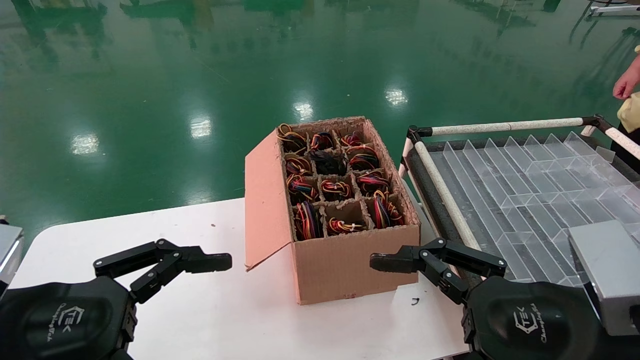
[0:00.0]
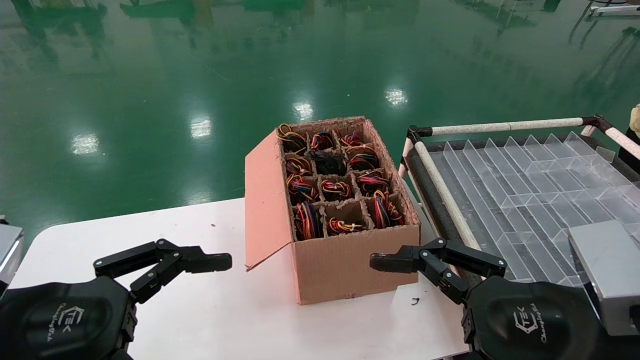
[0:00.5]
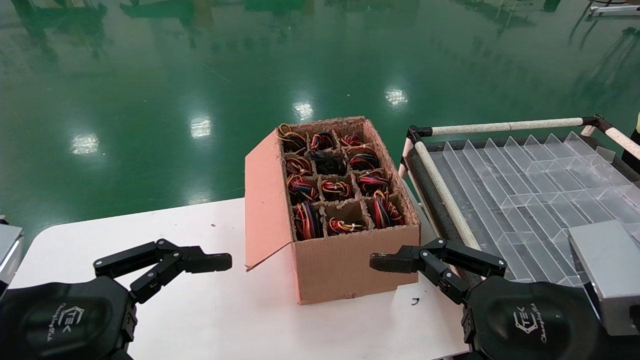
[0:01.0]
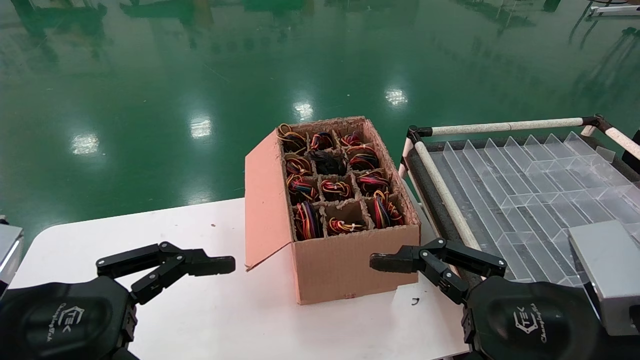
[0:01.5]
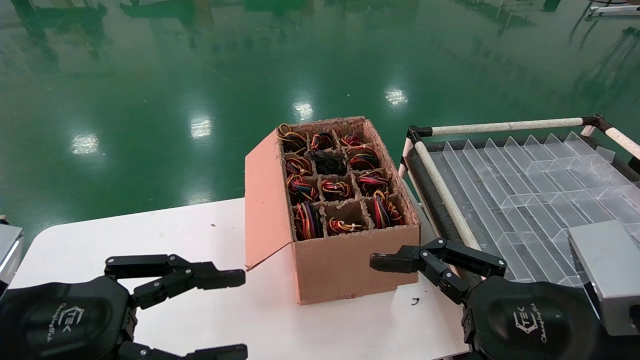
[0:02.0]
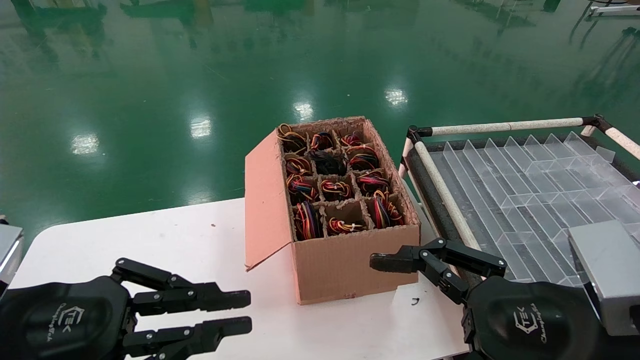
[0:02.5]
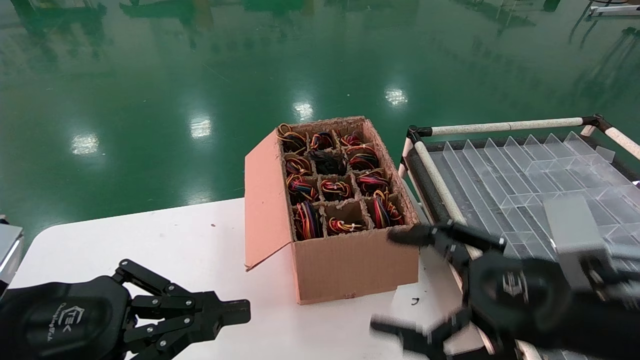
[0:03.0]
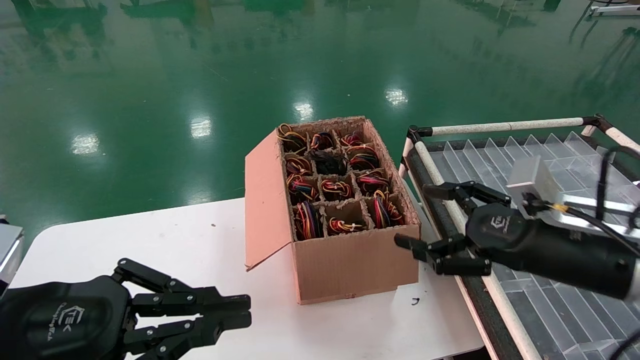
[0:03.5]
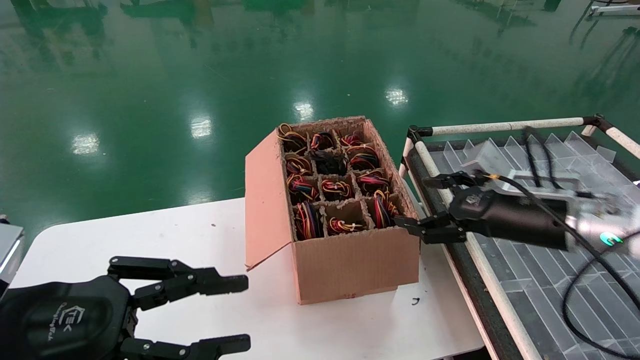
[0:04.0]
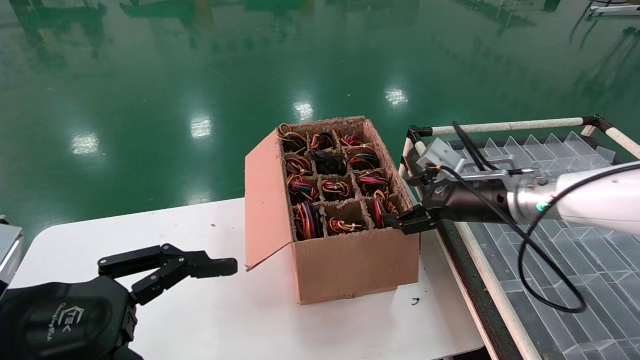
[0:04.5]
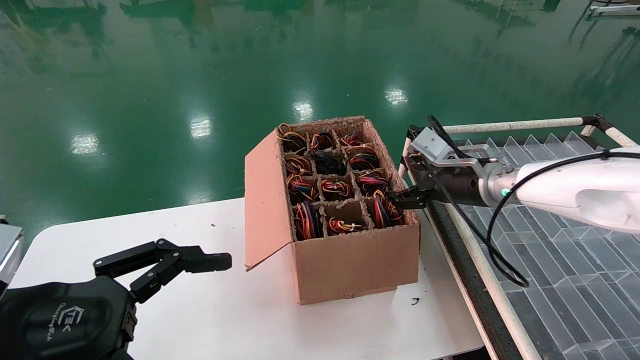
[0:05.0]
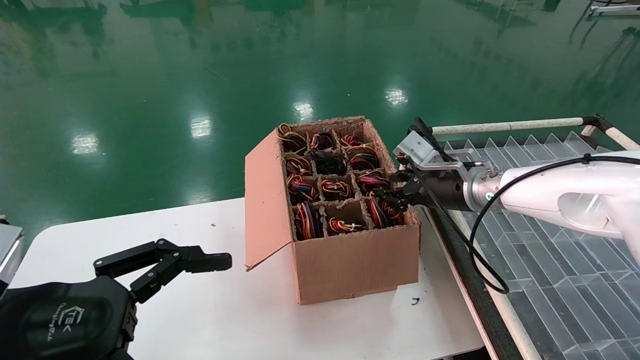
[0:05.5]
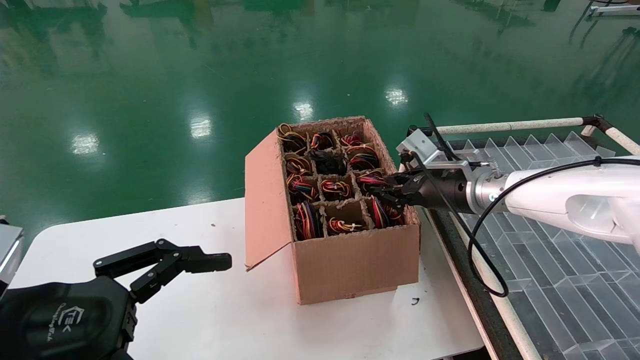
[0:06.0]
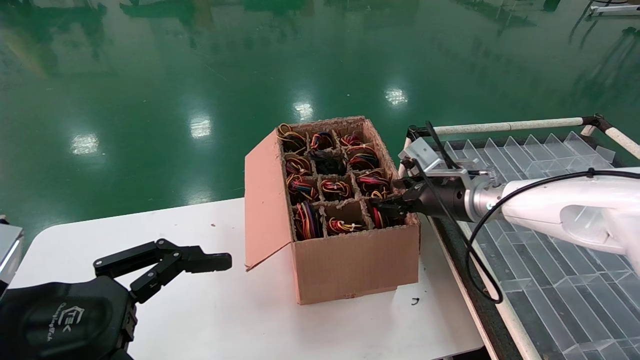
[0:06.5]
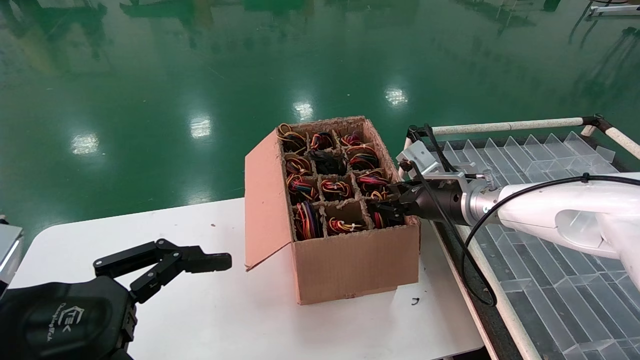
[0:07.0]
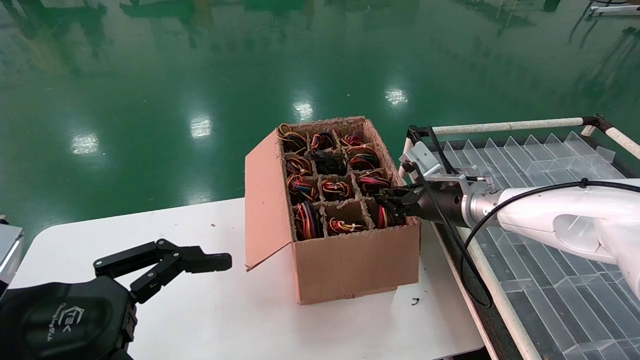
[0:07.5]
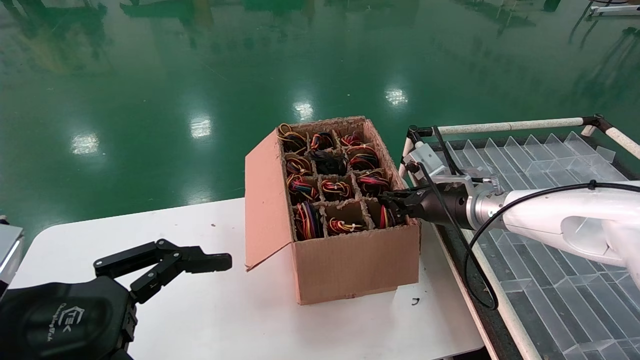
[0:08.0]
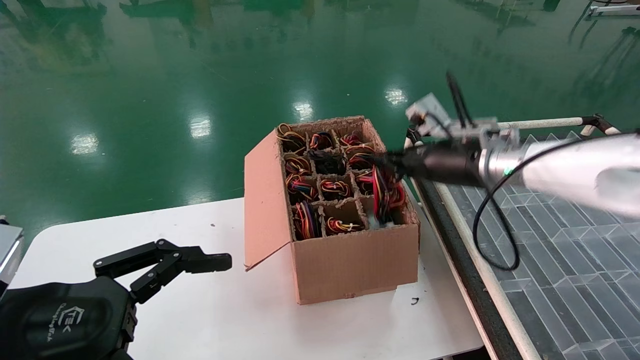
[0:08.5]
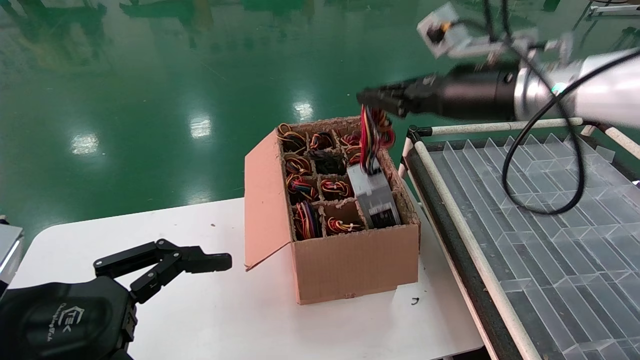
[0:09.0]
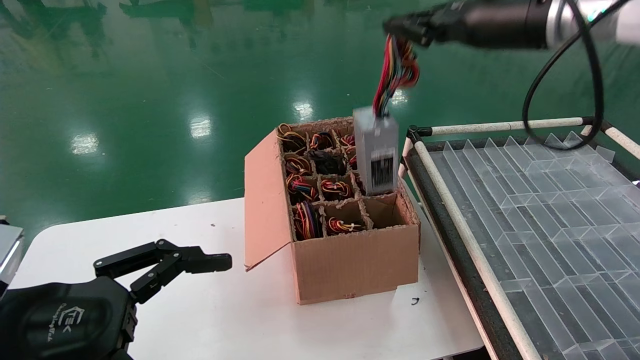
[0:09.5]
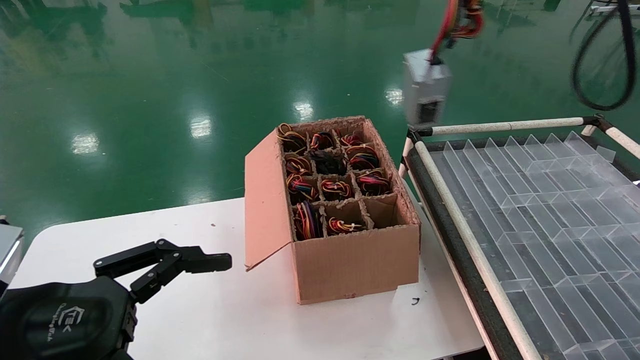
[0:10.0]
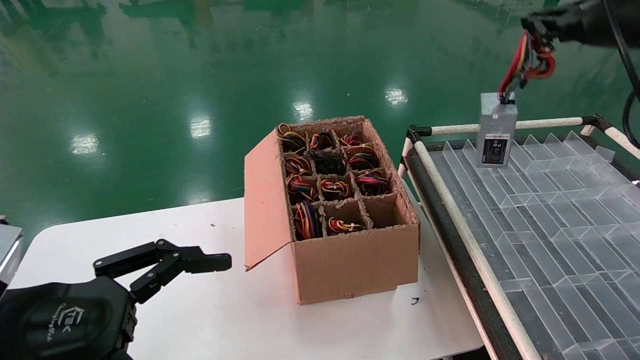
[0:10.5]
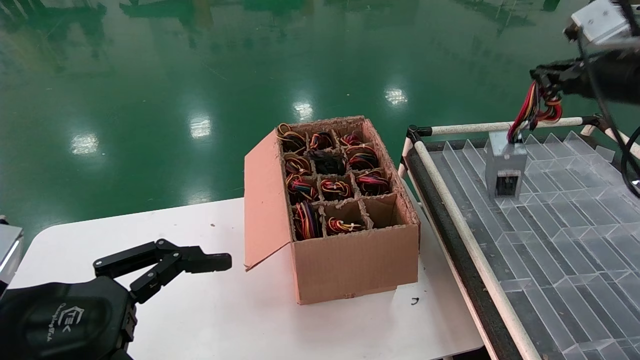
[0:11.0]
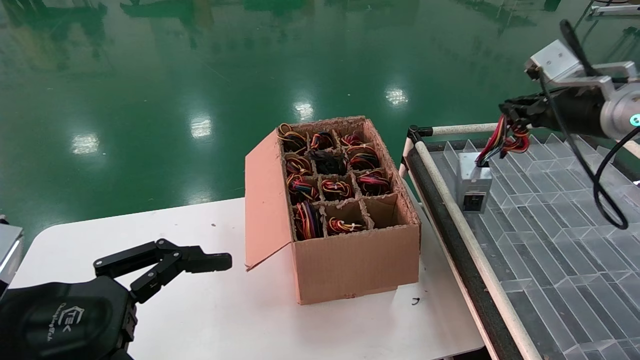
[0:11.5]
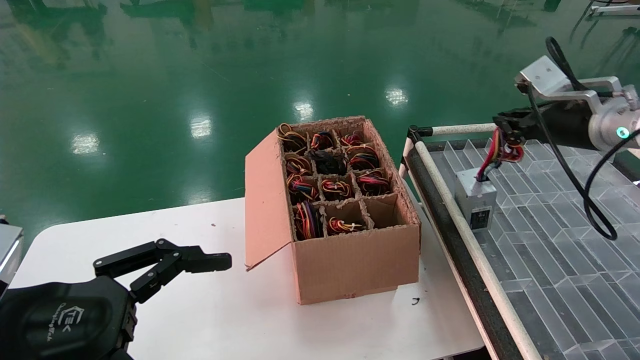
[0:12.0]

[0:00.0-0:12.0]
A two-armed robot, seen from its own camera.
Step, 0:02.0 to 0:07.5: Grab and lift the power supply from the large box.
0:00.0 to 0:02.0: The left gripper closes up.
0:02.0 to 0:04.0: The right gripper goes roughly 20 cm forward, while the left gripper closes up.
0:04.0 to 0:06.0: The left gripper opens up. The right gripper heads forward and to the left, covering roughly 10 cm, and closes.
0:06.0 to 0:08.0: The grippers move only a little.
0:08.0 to 0:10.0: The right gripper is displaced upward by about 30 cm.
0:10.0 to 0:12.0: The right gripper moves downward, to the right and forward, about 20 cm.

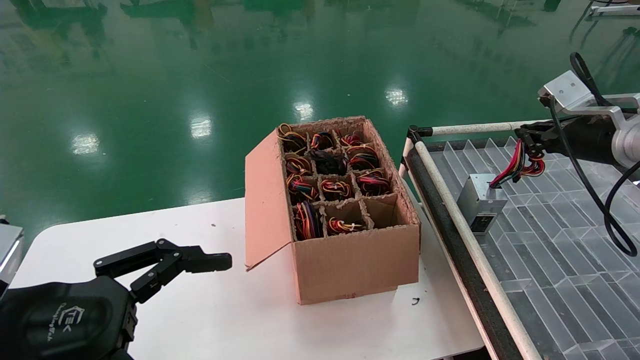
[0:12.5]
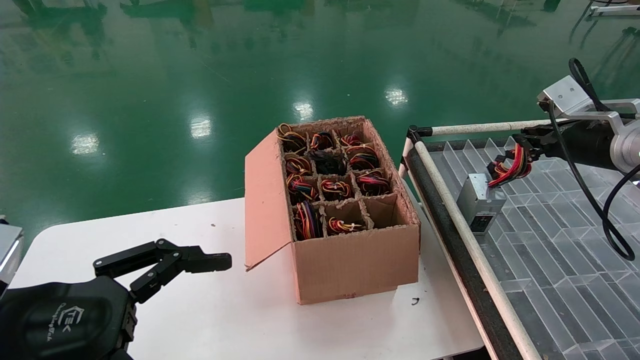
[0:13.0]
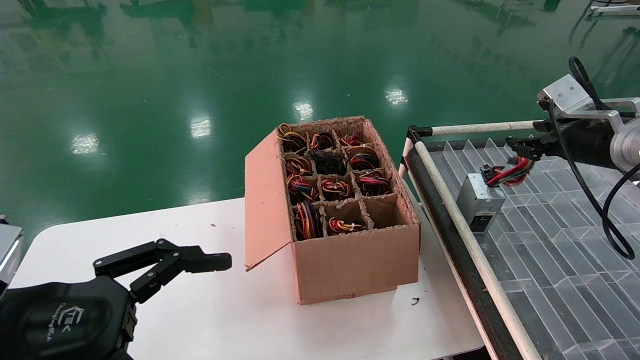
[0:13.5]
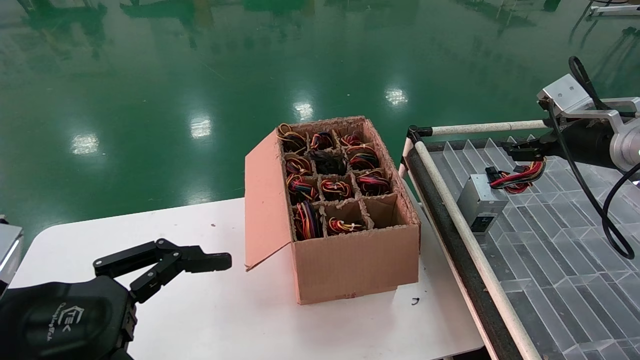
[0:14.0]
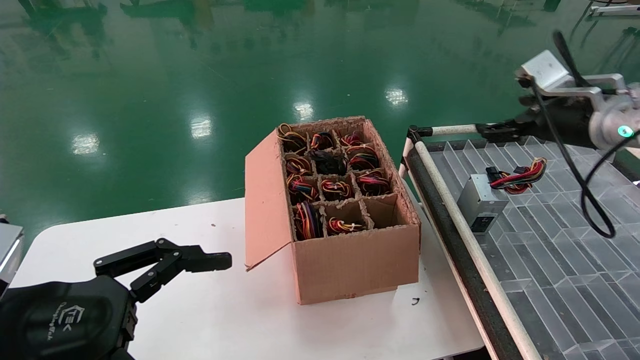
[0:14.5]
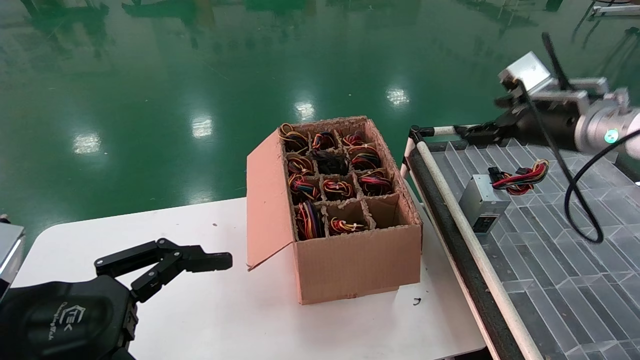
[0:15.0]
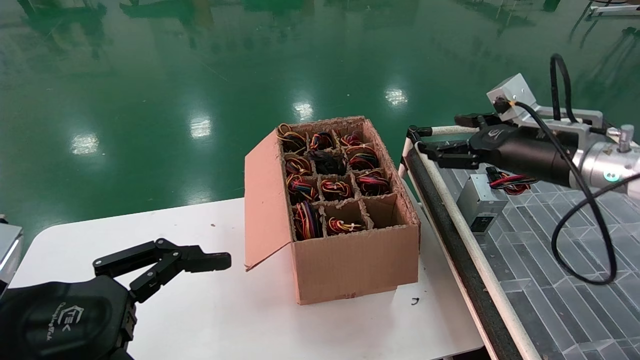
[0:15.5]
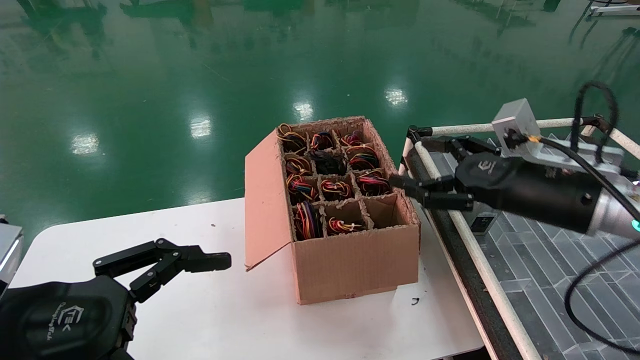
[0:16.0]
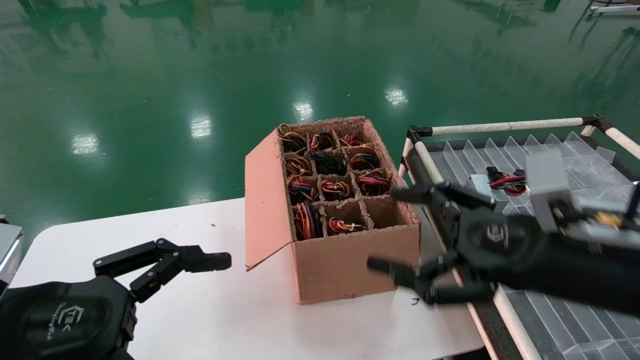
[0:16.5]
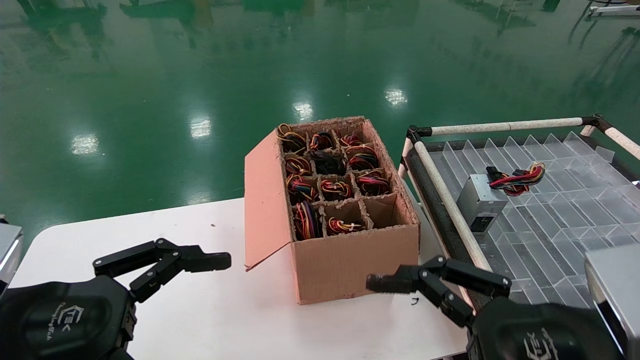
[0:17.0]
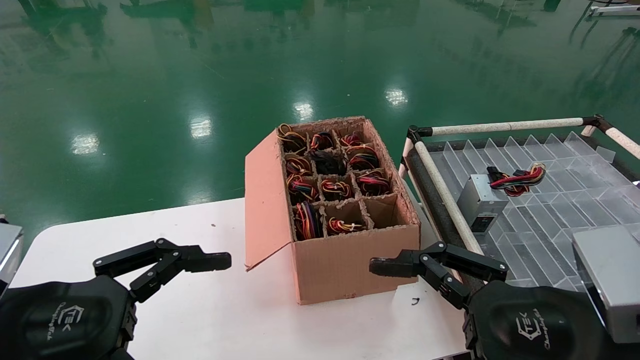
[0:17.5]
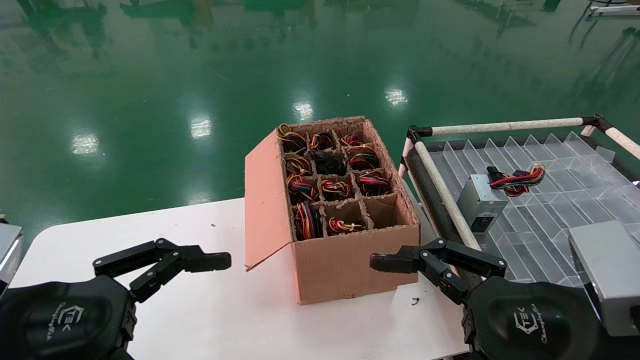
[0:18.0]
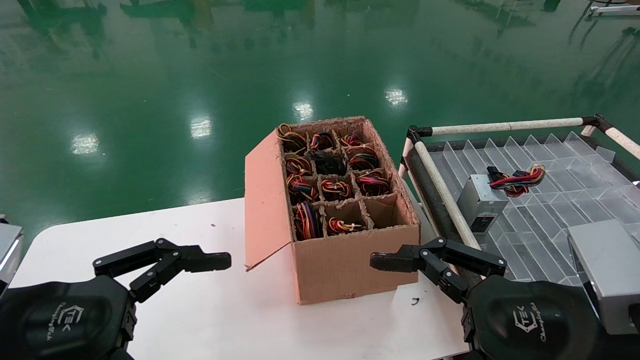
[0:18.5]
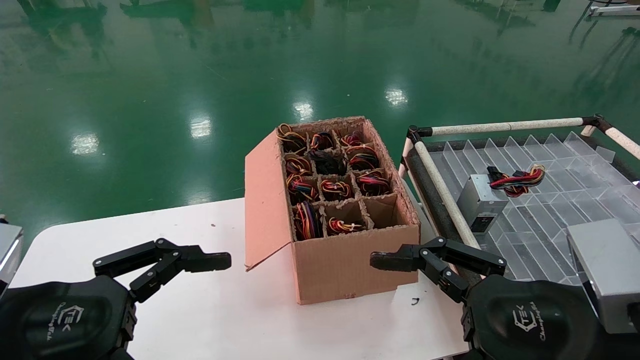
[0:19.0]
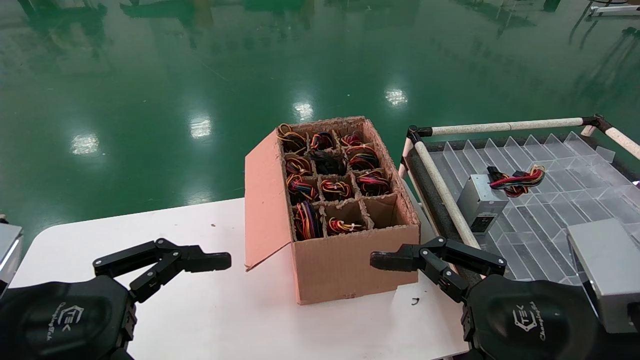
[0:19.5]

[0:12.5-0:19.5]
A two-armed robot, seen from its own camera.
0:12.5 to 0:14.5: The right gripper opens.
0:14.5 to 0:16.0: The right gripper travels backward, to the left and downward by roughly 15 cm.
0:16.0 to 0:17.5: The right gripper shifts about 15 cm backward.
0:17.5 to 0:19.5: Both grippers stay put.

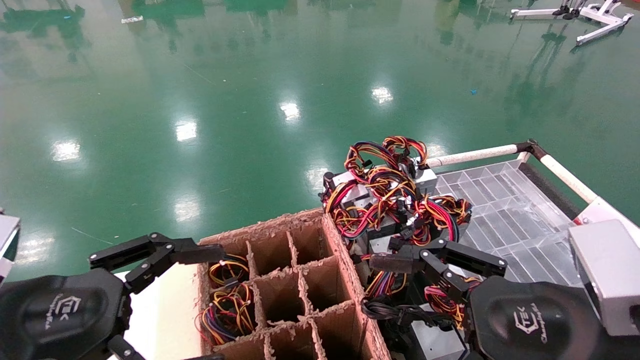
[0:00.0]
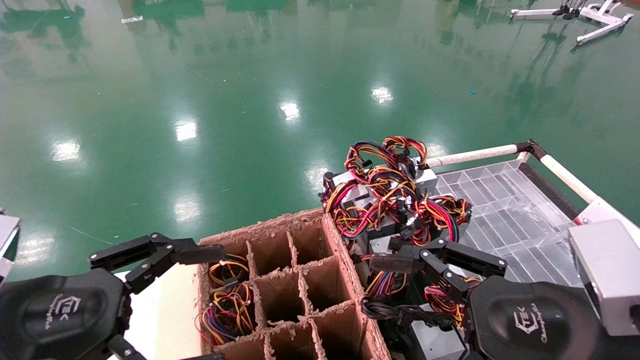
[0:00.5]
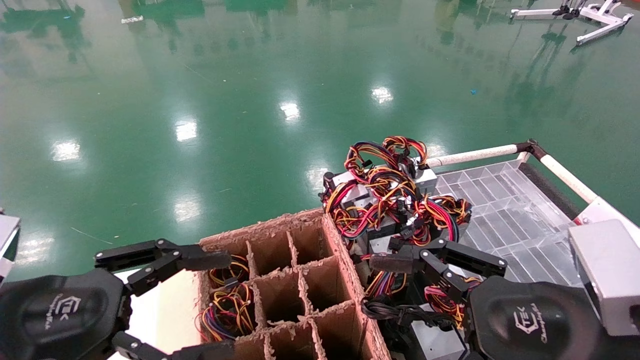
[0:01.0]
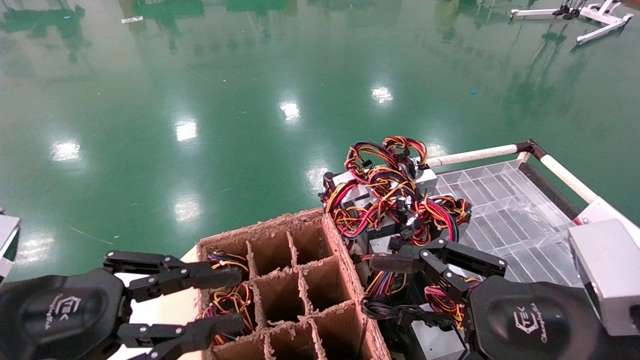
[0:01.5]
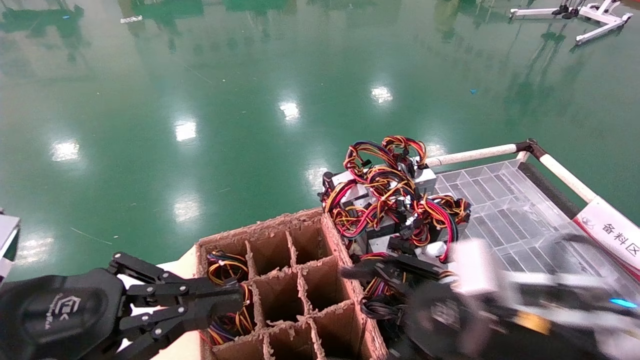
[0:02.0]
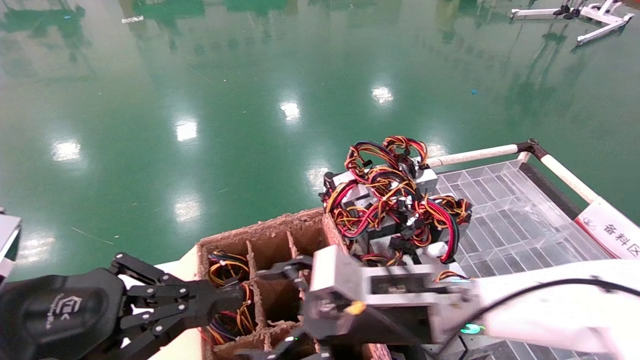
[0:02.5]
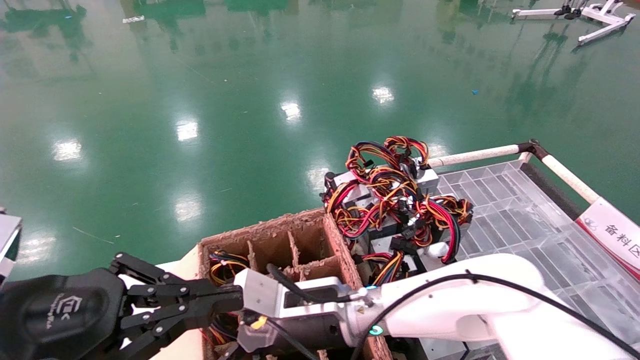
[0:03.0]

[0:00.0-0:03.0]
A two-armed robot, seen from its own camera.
0:00.0 to 0:01.5: The left gripper closes.
0:01.5 to 0:03.0: The right gripper shifts roughly 30 cm to the left, forward and downward, while the left gripper closes.
